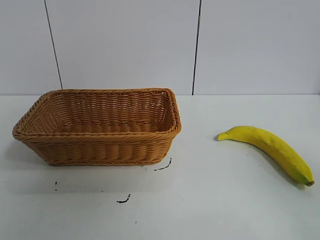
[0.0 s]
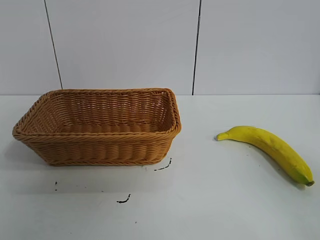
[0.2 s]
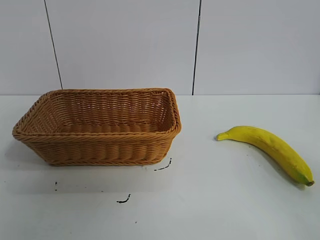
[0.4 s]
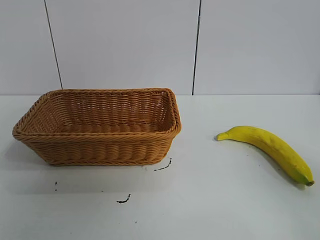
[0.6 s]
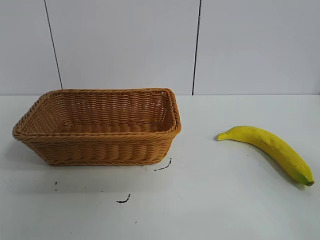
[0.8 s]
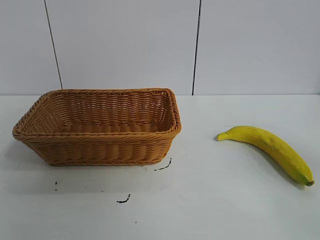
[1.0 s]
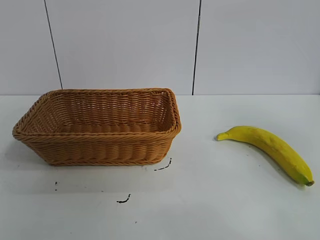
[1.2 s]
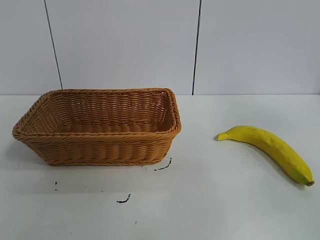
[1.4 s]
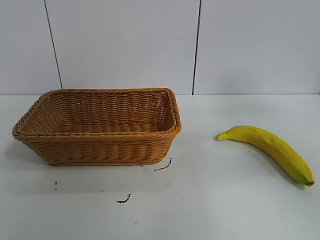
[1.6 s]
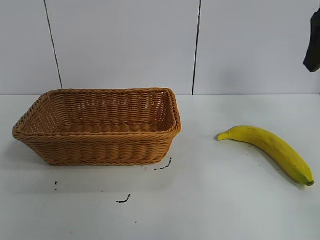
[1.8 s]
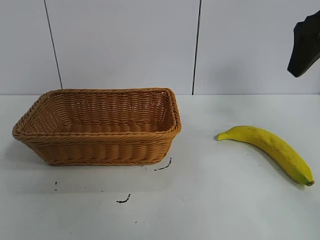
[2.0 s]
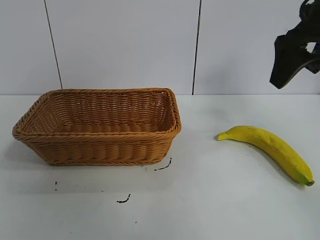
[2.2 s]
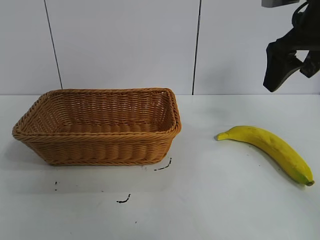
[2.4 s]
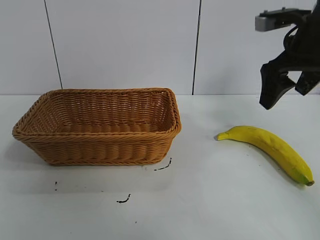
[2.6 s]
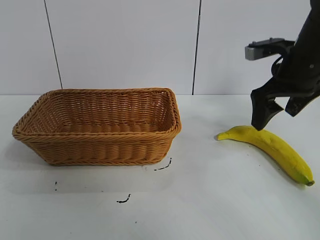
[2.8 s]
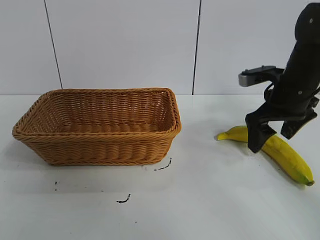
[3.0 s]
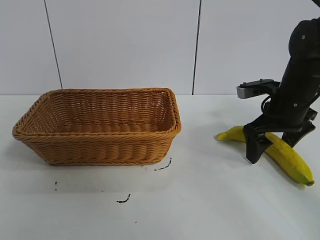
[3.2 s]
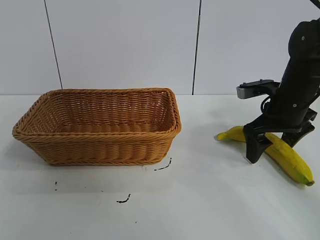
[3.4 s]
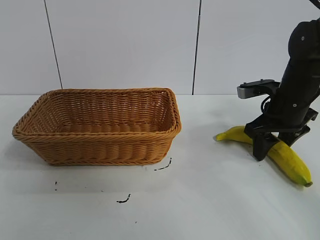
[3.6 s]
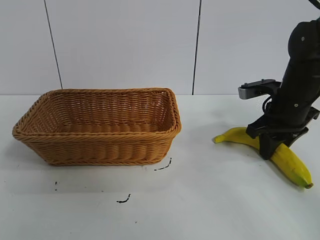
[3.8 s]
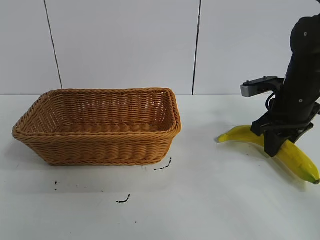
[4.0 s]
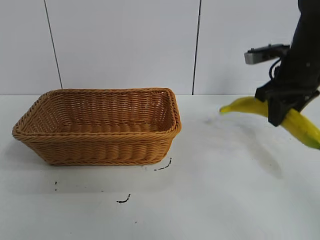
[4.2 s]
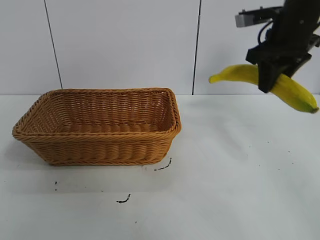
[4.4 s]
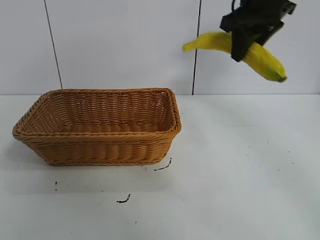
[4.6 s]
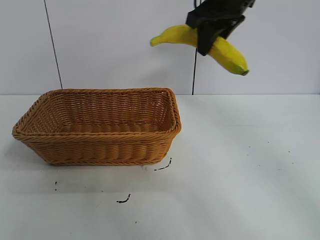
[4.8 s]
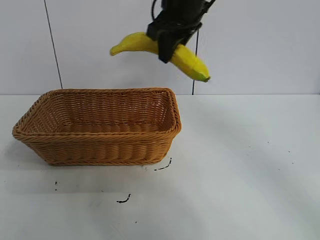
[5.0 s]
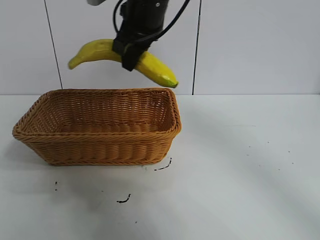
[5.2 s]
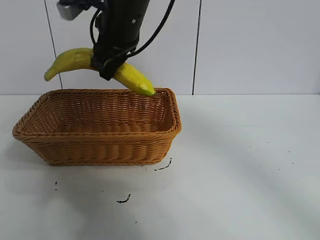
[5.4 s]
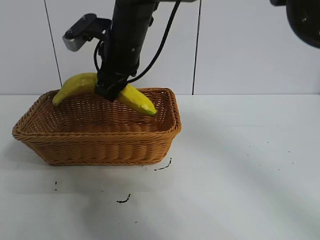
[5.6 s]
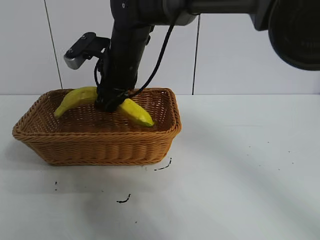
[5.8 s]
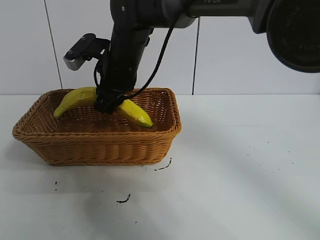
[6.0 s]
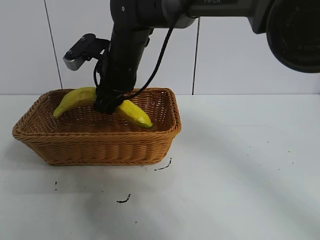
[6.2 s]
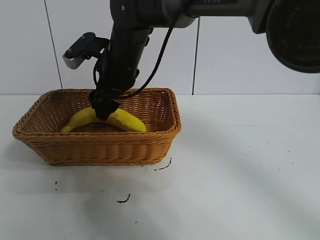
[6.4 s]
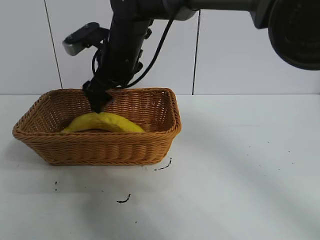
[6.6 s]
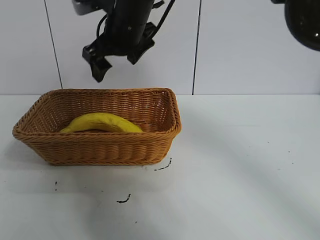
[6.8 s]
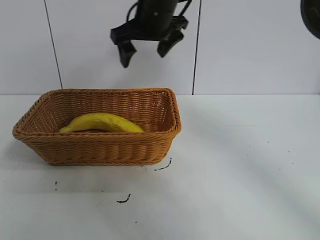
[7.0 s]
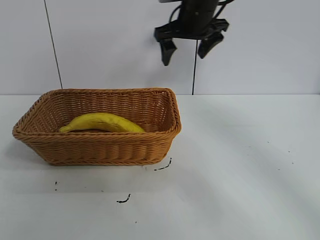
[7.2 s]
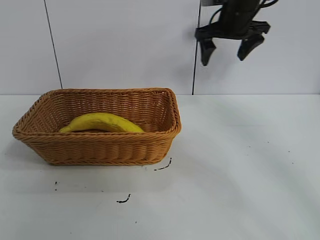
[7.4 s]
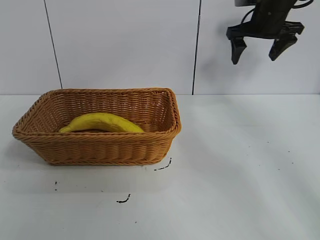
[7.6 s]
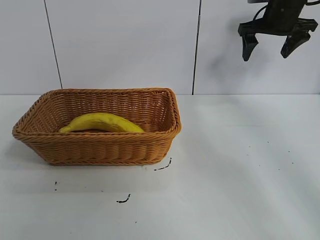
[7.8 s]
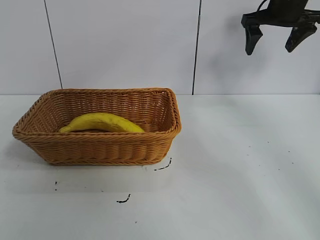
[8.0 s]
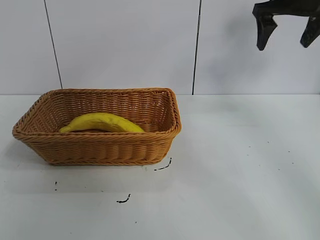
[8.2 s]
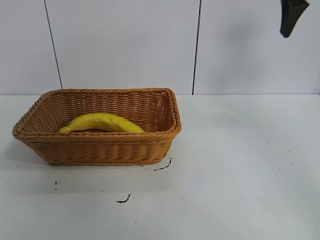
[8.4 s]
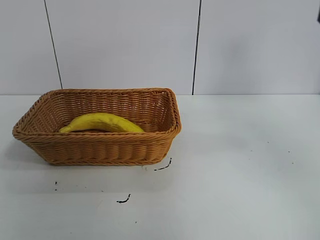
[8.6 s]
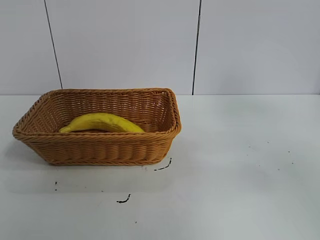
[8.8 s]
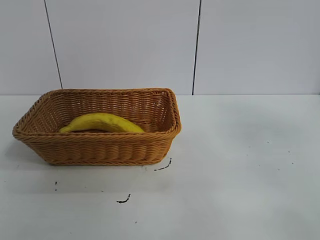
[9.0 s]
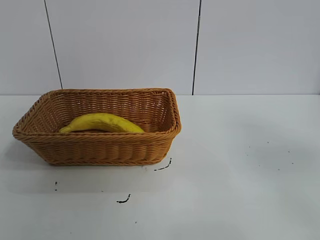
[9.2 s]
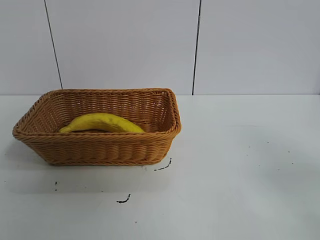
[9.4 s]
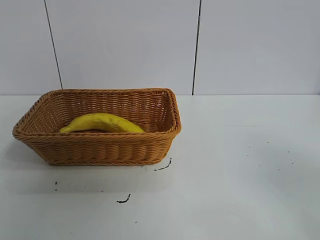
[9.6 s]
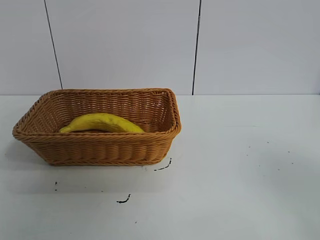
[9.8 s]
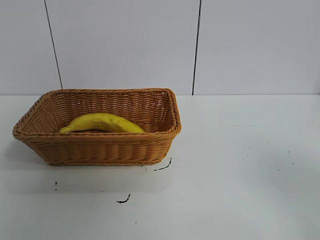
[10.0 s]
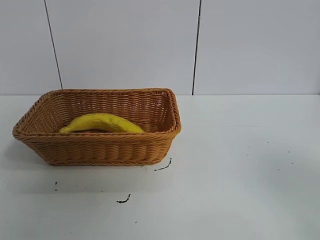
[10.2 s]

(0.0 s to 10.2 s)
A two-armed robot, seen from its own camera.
Task of the whole recording: pick up the banana and put it into the basket.
Step, 0.8 s - 3.6 s: Grasp the banana with right gripper.
Step, 4.0 s - 6.4 s: Place the banana in the basket with right gripper.

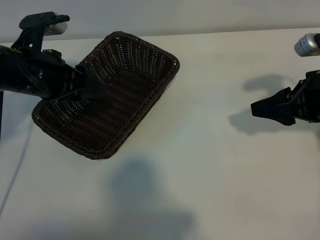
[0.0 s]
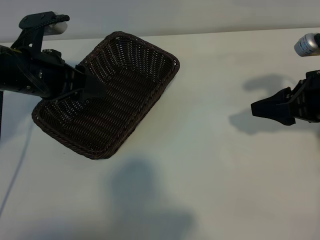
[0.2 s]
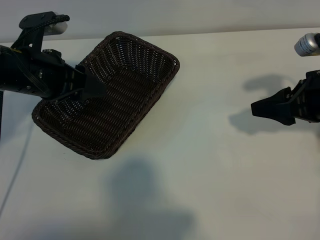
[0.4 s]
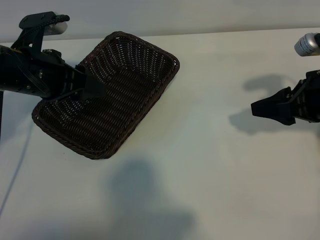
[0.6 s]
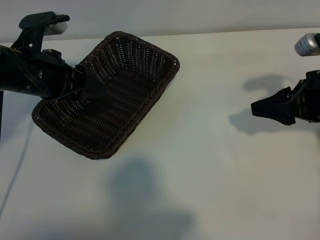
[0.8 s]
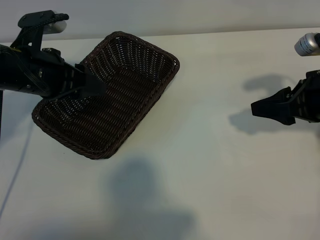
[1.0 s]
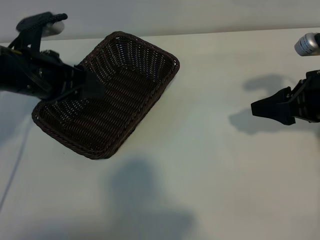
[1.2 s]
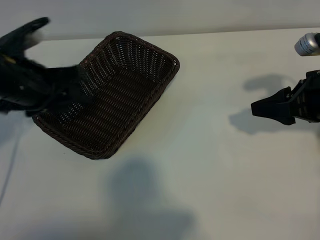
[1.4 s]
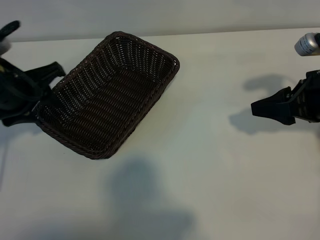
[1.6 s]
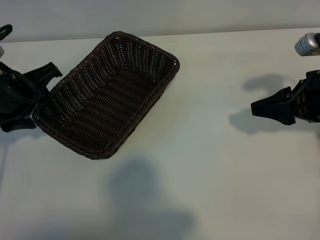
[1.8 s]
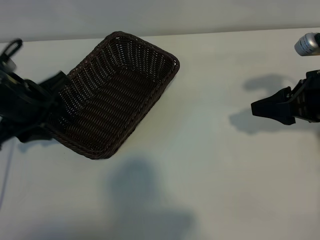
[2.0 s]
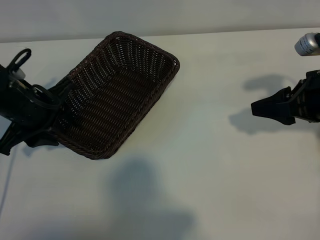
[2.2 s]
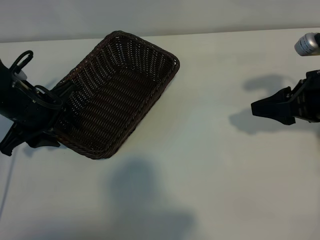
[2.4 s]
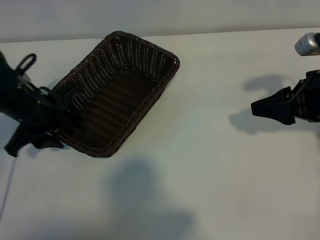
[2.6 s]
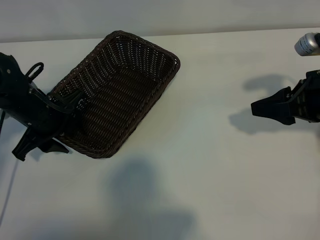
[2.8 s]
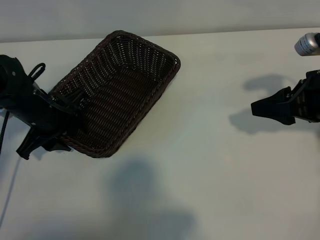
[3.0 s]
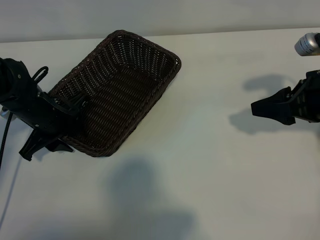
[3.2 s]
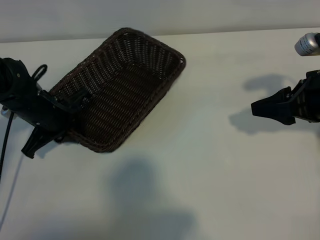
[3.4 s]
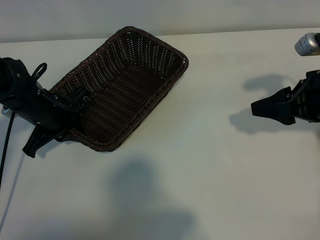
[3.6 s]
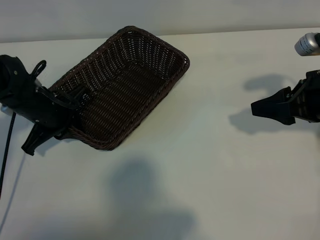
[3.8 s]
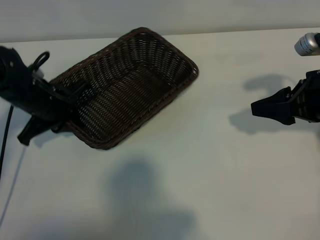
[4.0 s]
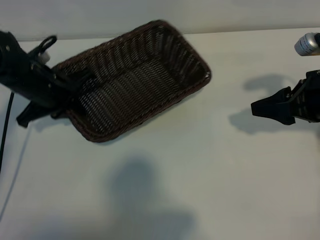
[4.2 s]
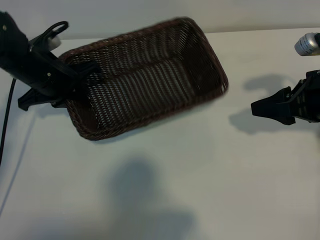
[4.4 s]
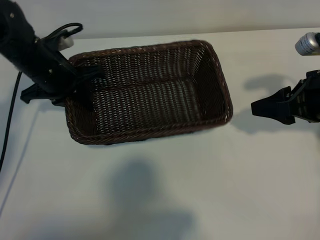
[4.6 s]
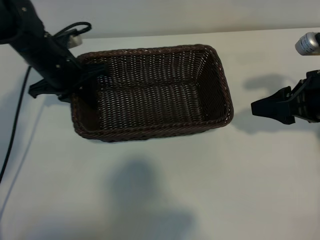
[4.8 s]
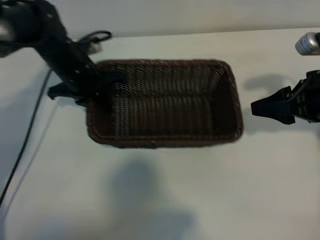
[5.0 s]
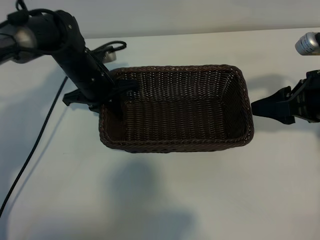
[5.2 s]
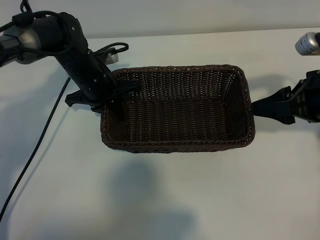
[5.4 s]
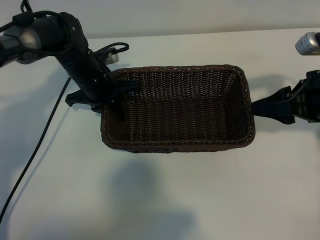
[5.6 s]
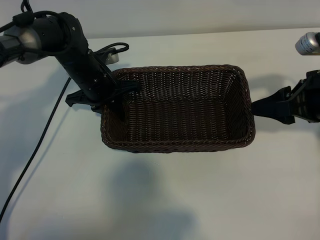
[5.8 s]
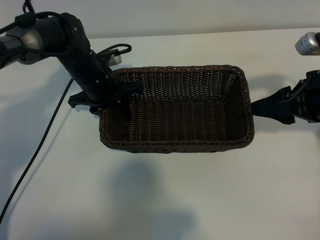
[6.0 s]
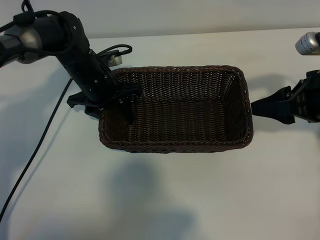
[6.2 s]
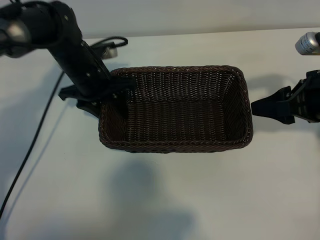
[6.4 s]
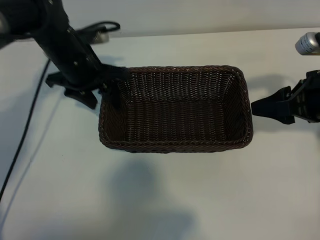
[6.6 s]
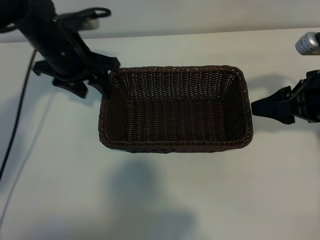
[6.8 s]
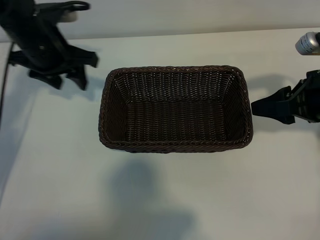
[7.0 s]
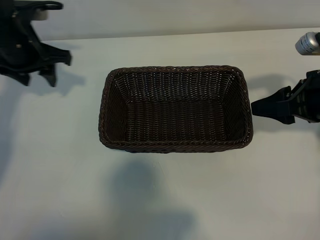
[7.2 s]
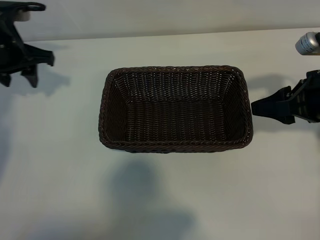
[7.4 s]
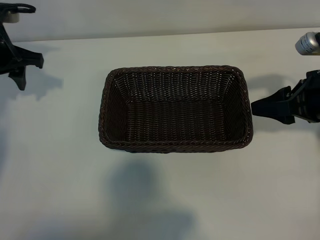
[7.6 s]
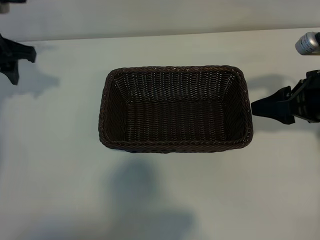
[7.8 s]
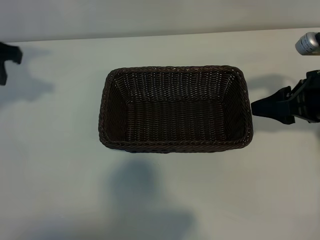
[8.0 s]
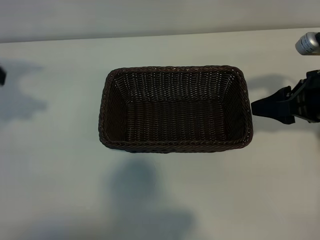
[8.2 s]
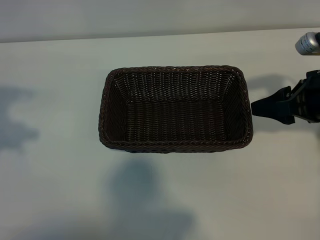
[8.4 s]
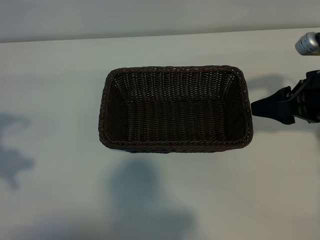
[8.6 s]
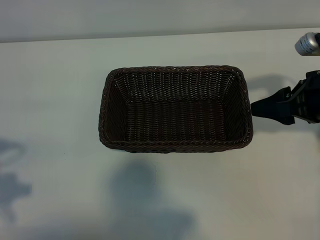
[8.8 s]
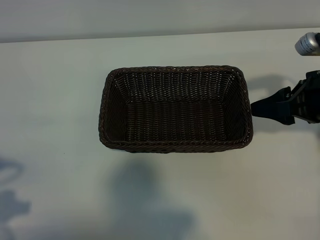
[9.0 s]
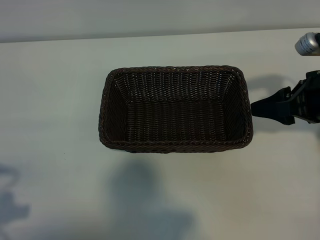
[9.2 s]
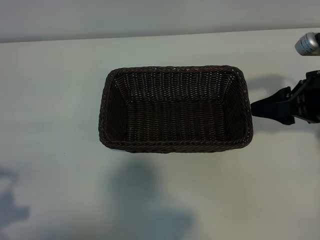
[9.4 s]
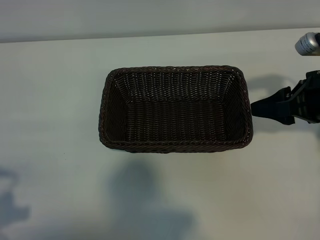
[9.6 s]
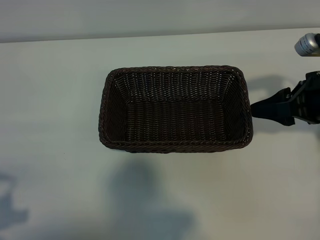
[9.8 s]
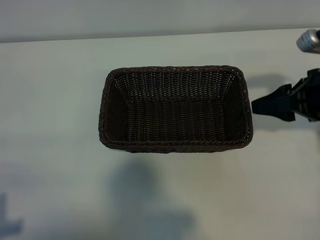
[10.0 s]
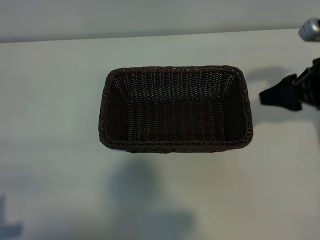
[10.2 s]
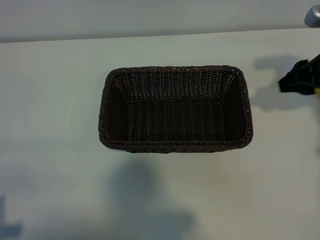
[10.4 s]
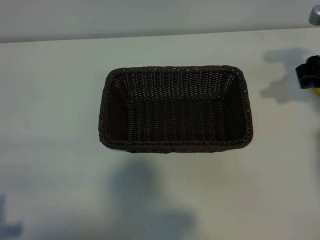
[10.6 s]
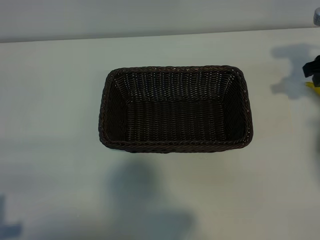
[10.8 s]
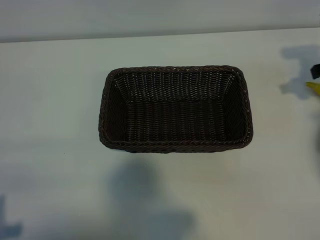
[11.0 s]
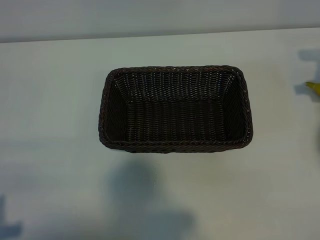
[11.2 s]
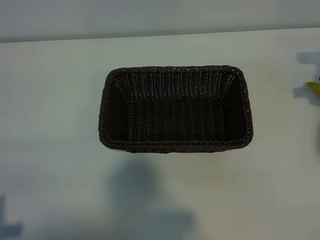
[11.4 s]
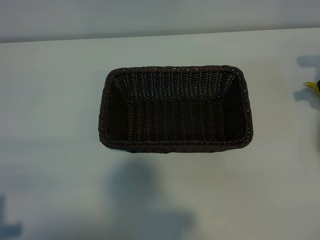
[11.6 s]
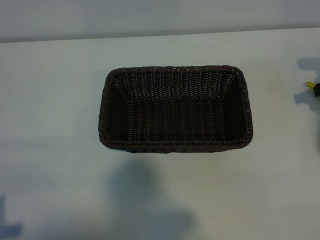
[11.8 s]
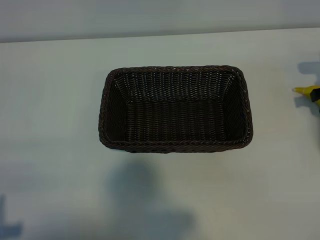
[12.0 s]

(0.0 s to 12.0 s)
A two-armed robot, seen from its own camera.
Task of the whole recording: pick up the banana and put it into the basket.
Step, 0.0 s - 3.6 s: Grasp the basket with the left gripper.
Step, 3.8 s - 6.6 s: Place the basket in the center of the table with the left gripper.
